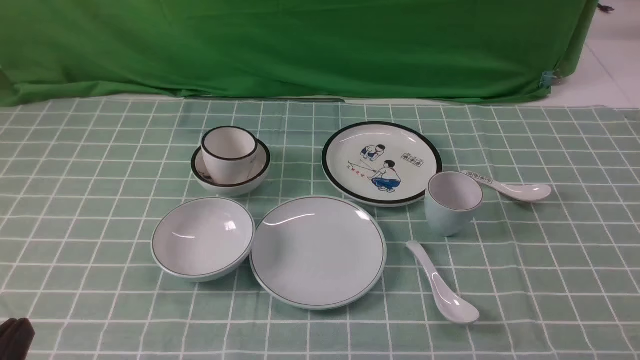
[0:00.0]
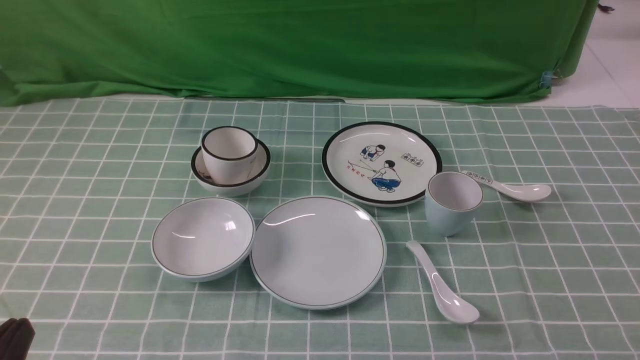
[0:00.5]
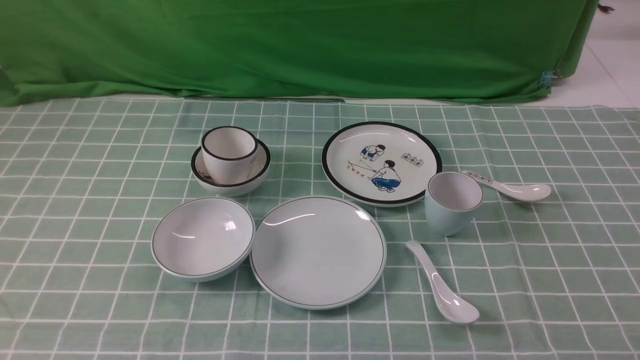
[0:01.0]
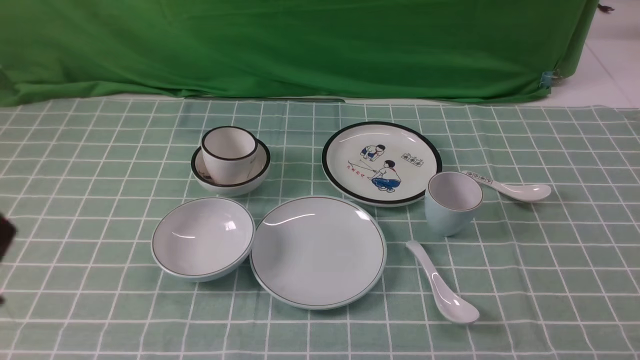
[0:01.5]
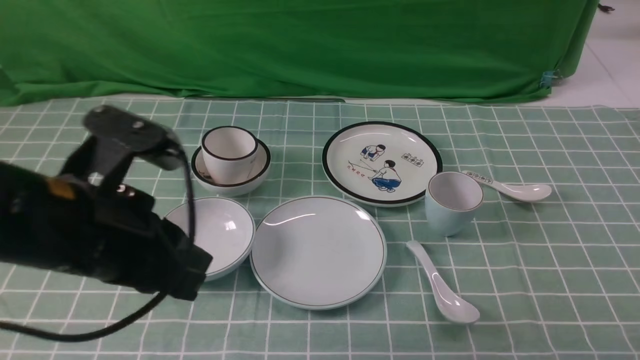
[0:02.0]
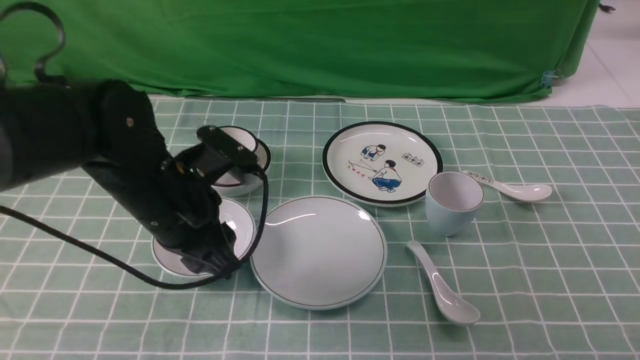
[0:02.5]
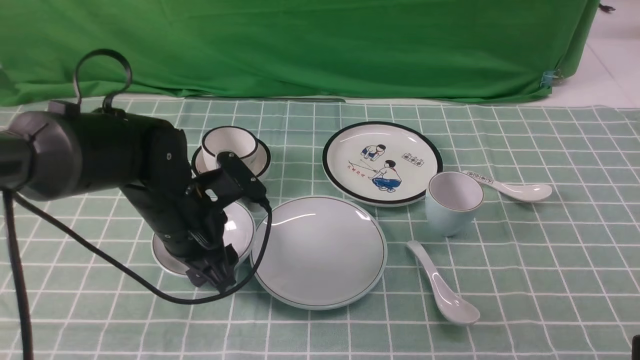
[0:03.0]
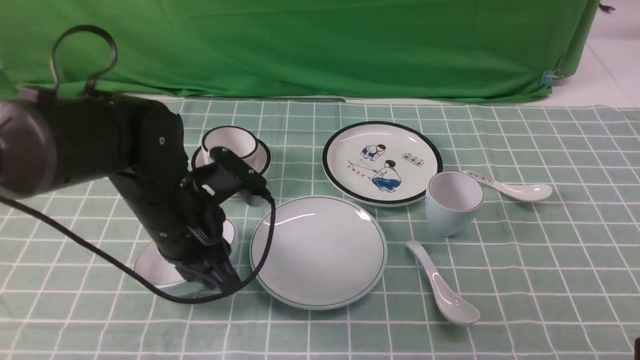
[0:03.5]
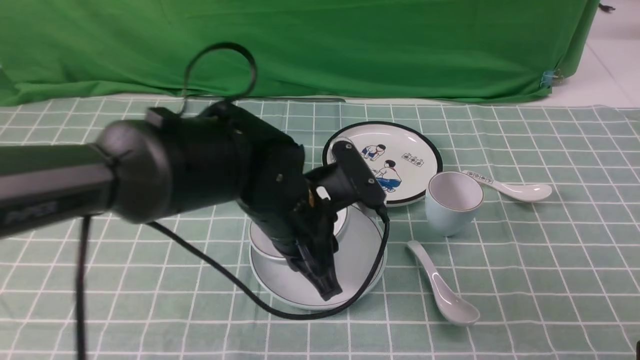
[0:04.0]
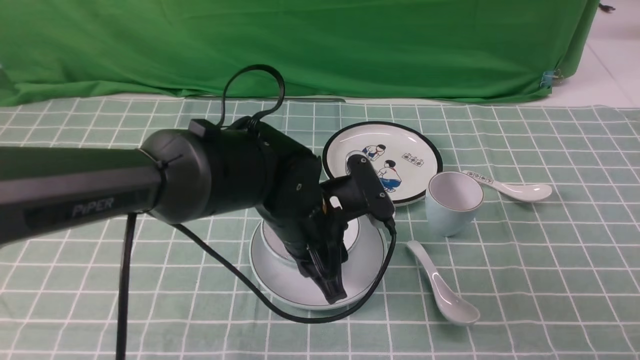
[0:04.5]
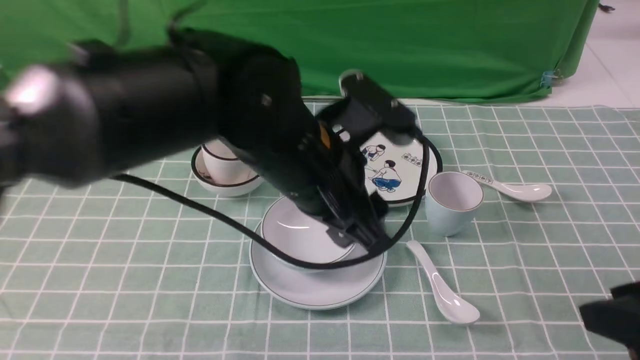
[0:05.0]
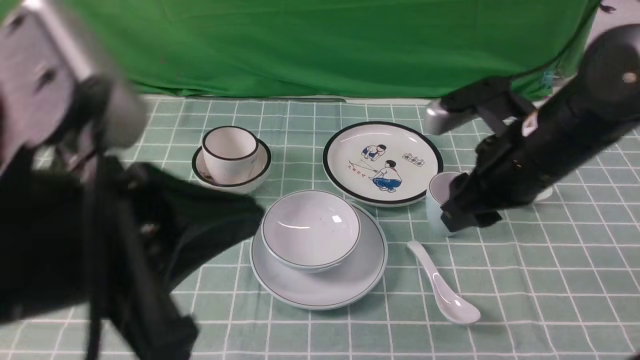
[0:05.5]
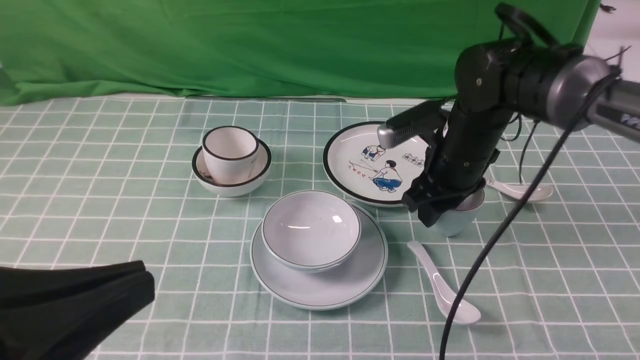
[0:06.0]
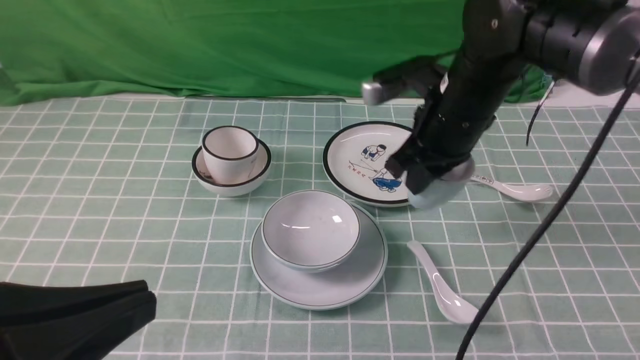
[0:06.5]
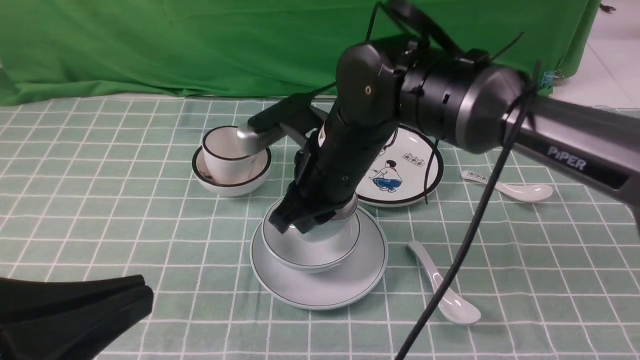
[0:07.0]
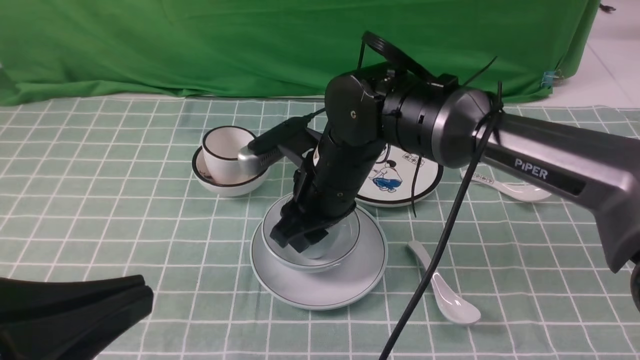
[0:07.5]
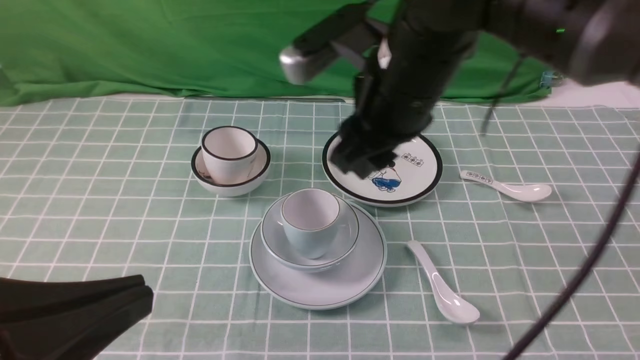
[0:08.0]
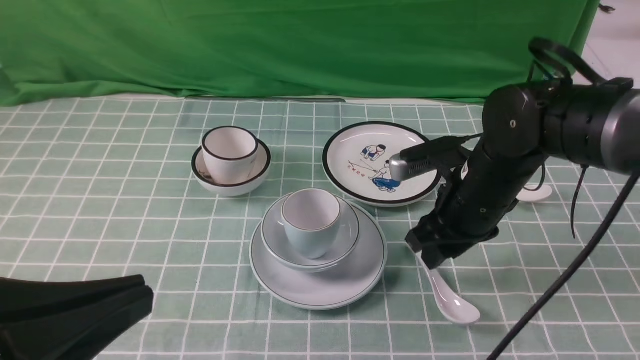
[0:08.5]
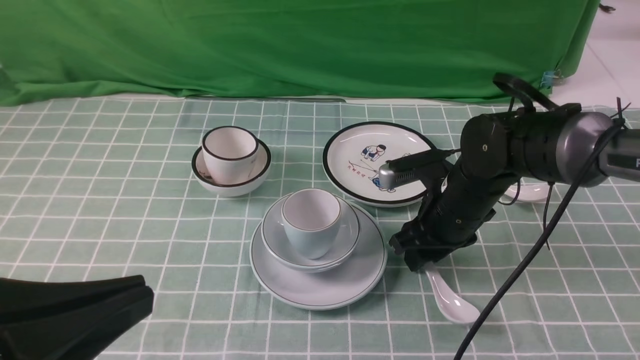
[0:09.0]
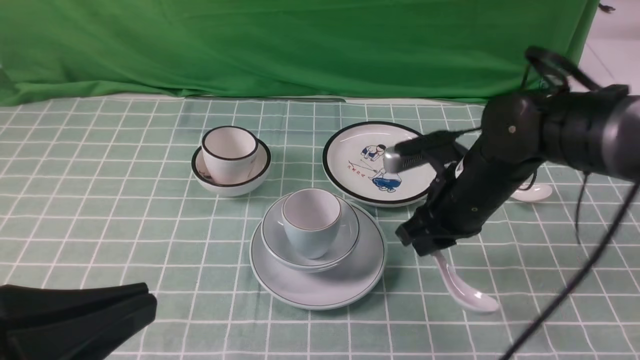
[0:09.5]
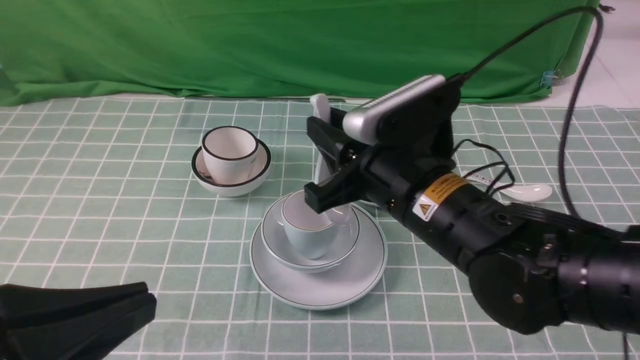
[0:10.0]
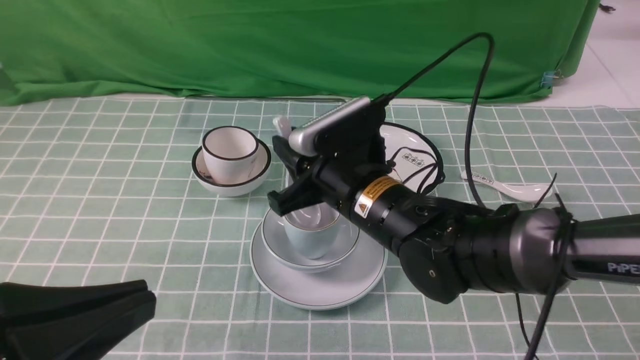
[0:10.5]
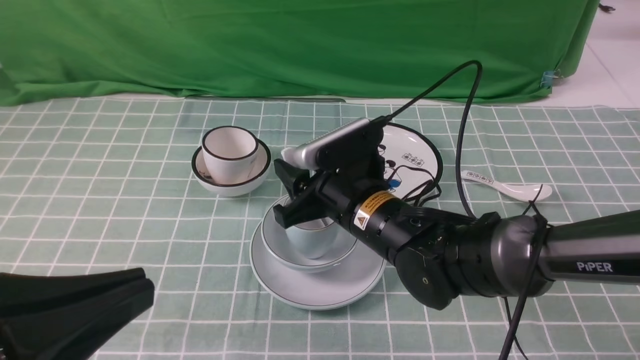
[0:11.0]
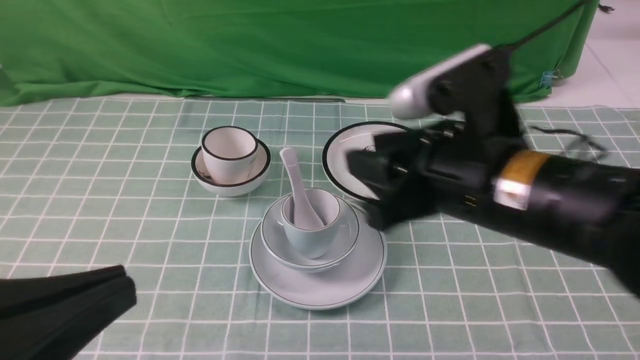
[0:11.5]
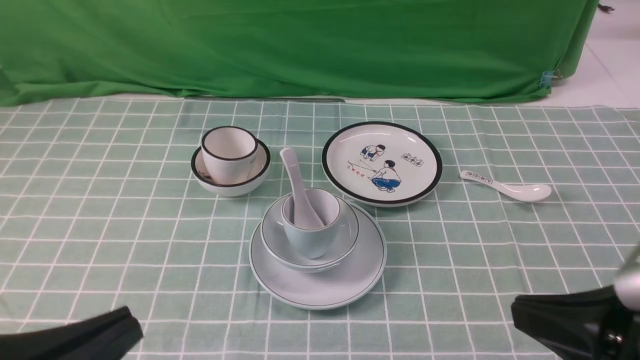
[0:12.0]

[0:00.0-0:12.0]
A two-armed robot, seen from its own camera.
Task of the whole recording: place the bowls on the plates on the blue tablecloth, put the cups on the bowls, and place the spoons in the cups.
Step, 0:00.0 to 0:03.0: Grasp the bowl with the left gripper.
Step, 0:03.5 to 0:04.5: Place the bowl on the plate with the left gripper.
Step, 0:05.0 to 0:06.0: Grasp the cup with the right gripper.
Step, 0:06.5 to 0:07.5: Place the cup on the bowl with the right gripper.
Step, 0:08.0 to 0:09.0: Grasp the spoon with the right gripper.
Step, 0:09.5 to 0:10.5: Place the spoon on the cup with the right gripper.
0:00.0 to 0:02.0: The left gripper heads forward, upward and to the right, covering approximately 20 cm.
0:02.0 to 0:04.0: The right gripper travels upward by approximately 10 cm. Meanwhile the left gripper shifts roughly 20 cm to the right, forward and downward, and opens and closes again.
0:04.0 to 0:06.0: The left gripper travels backward, to the left and upward by about 30 cm, and opens, then closes once more; the right gripper heads forward and to the left, covering about 35 cm.
0:06.0 to 0:08.0: The right gripper moves upward, to the left and backward, approximately 15 cm, and closes, then opens again.
0:08.0 to 0:10.0: The right gripper travels backward by some 5 cm, travels downward and back again, approximately 15 cm each way, and closes up.
0:10.0 to 0:12.0: The right gripper travels backward and to the right by about 20 cm, and closes its fingers; the left gripper shifts approximately 5 cm downward.

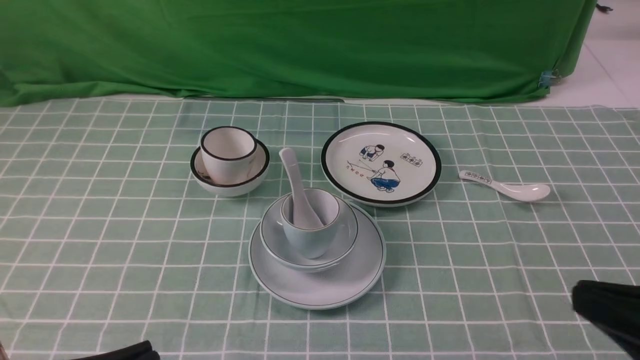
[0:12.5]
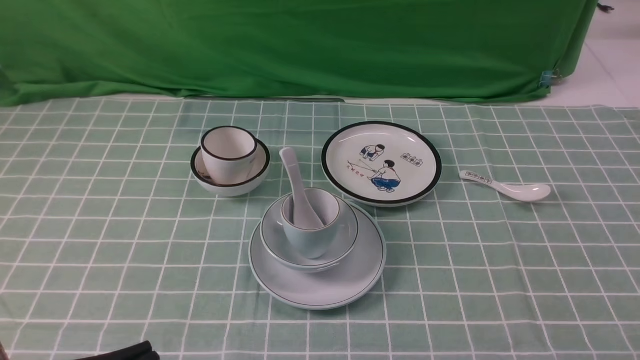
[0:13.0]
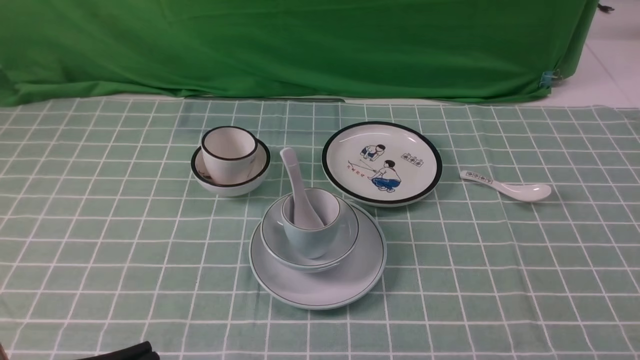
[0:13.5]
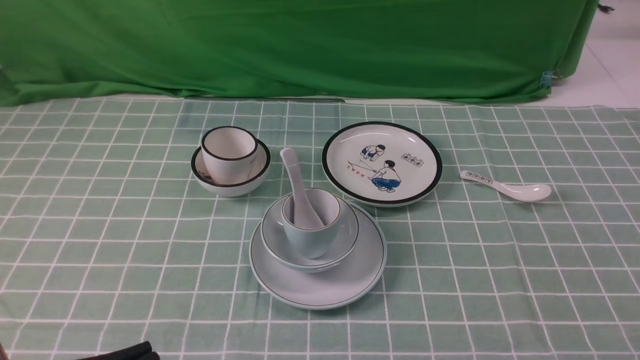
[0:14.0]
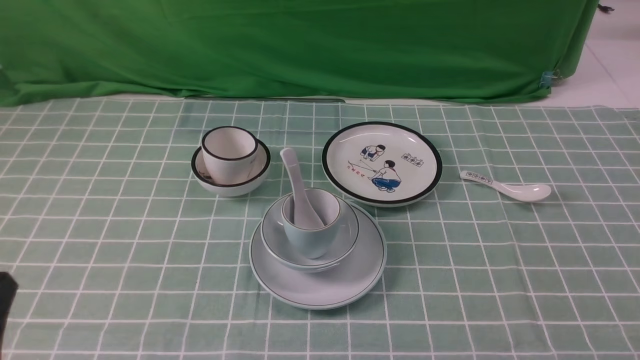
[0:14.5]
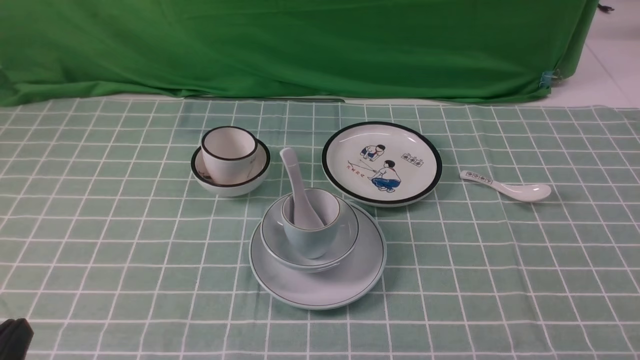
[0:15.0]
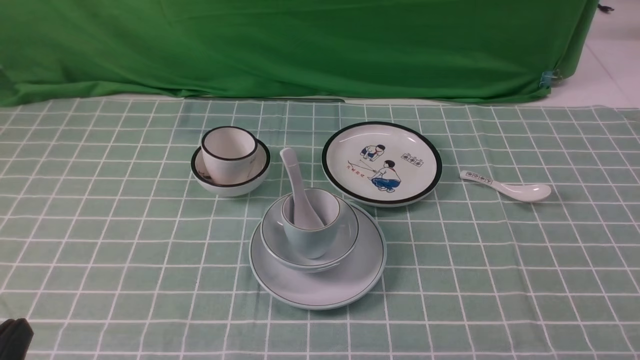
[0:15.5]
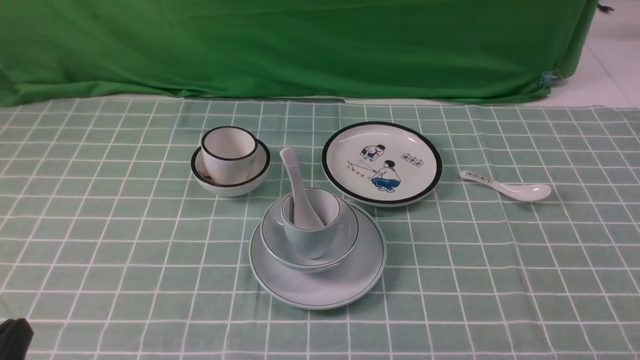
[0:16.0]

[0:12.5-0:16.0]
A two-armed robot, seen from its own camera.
Task of the whole recording: place the bowls on the plates on the blue tablecloth, put the cups on the bowls, and place the spoons in the cups.
0:12.5 to 0:14.5: The right gripper heads downward, covering about 10 cm.
